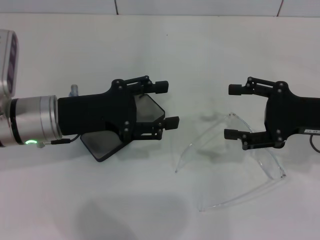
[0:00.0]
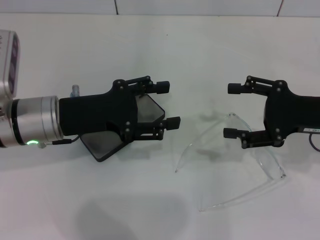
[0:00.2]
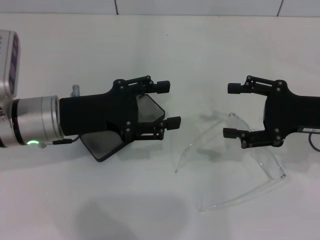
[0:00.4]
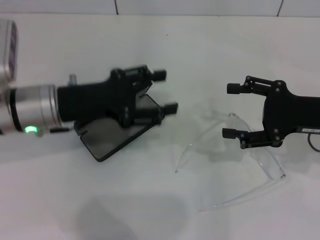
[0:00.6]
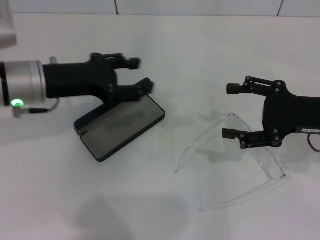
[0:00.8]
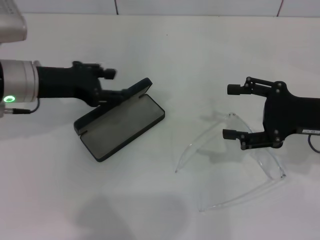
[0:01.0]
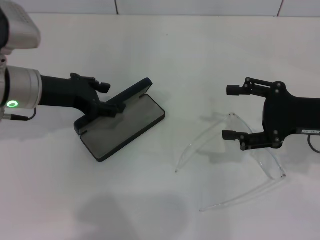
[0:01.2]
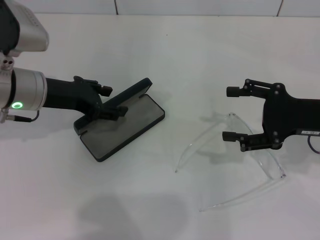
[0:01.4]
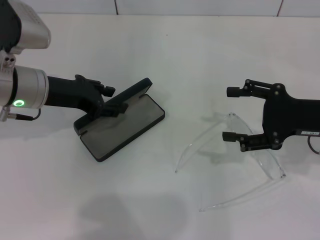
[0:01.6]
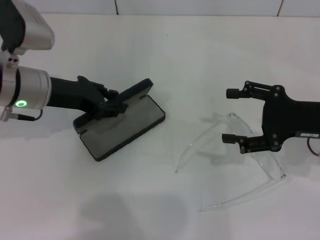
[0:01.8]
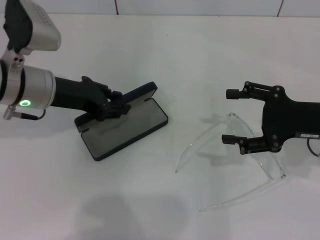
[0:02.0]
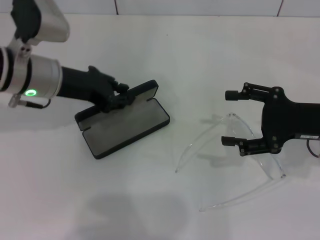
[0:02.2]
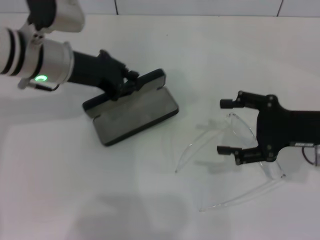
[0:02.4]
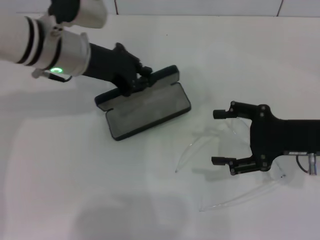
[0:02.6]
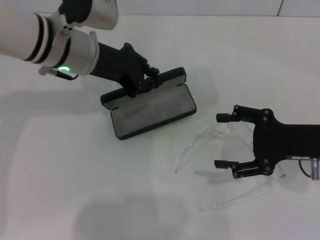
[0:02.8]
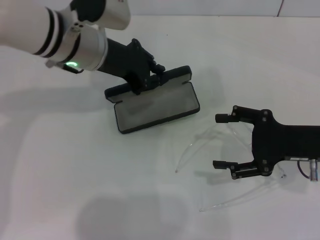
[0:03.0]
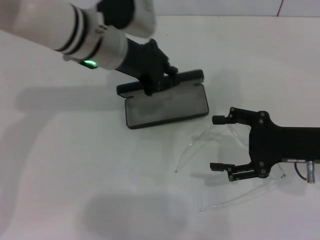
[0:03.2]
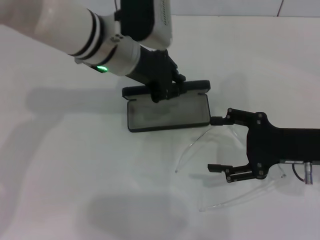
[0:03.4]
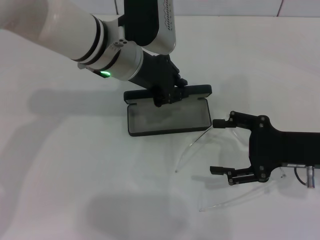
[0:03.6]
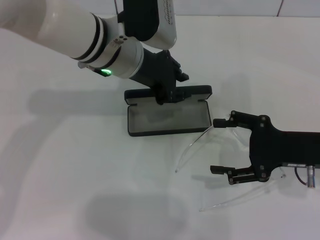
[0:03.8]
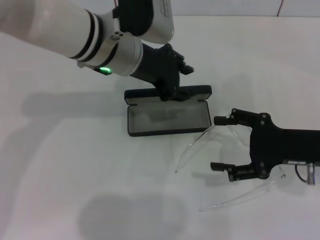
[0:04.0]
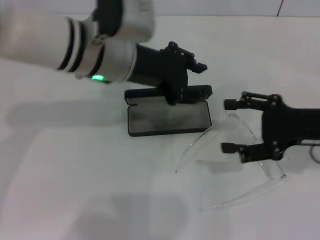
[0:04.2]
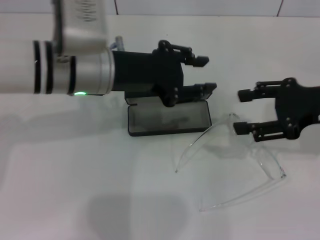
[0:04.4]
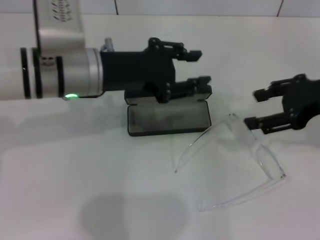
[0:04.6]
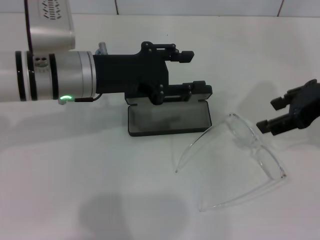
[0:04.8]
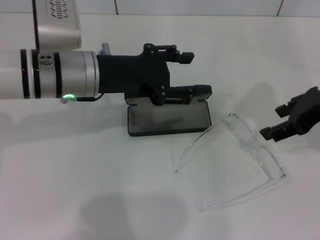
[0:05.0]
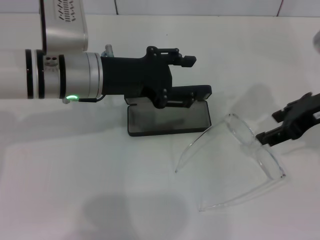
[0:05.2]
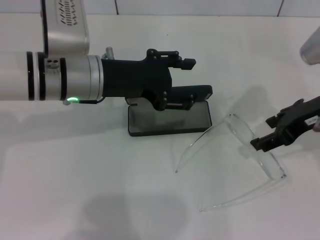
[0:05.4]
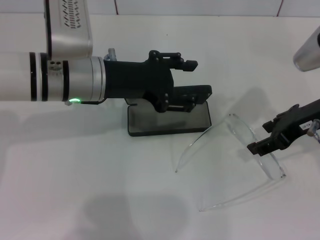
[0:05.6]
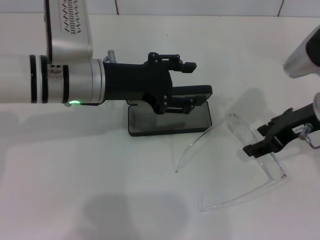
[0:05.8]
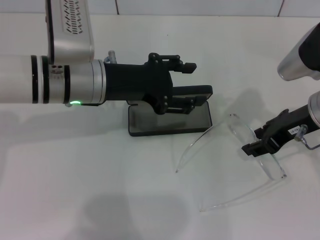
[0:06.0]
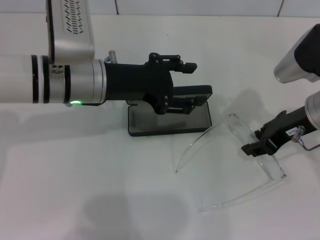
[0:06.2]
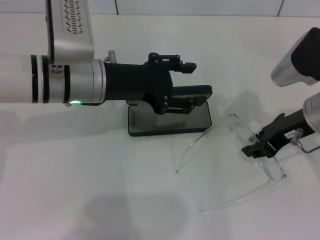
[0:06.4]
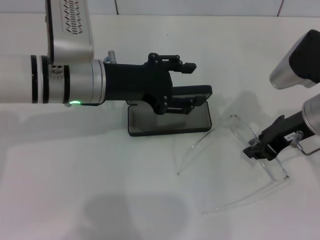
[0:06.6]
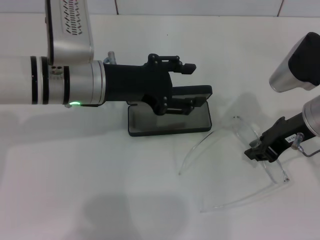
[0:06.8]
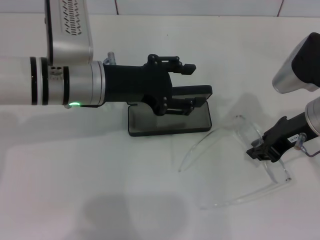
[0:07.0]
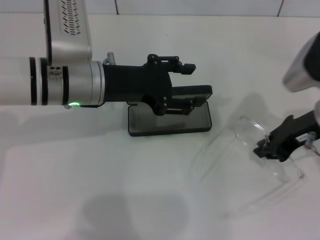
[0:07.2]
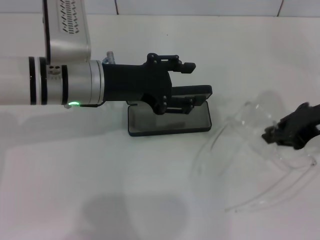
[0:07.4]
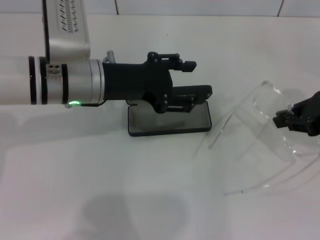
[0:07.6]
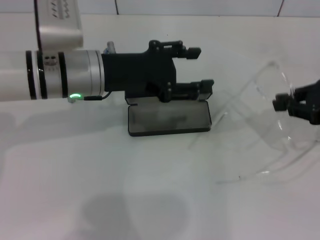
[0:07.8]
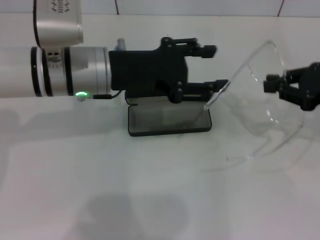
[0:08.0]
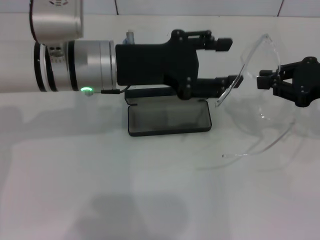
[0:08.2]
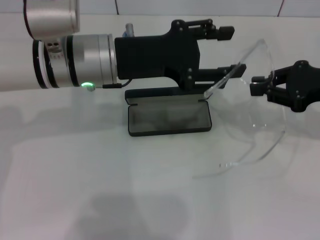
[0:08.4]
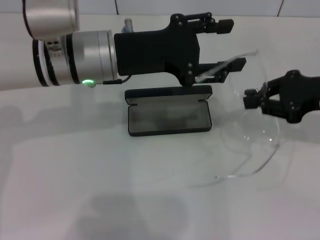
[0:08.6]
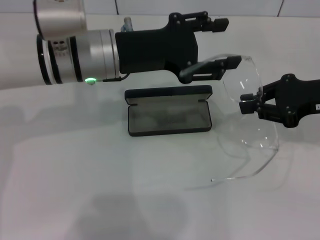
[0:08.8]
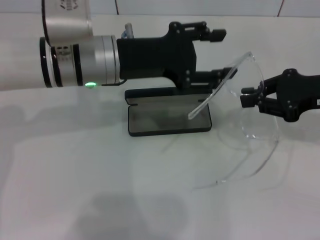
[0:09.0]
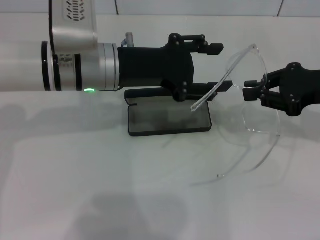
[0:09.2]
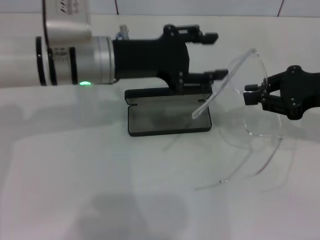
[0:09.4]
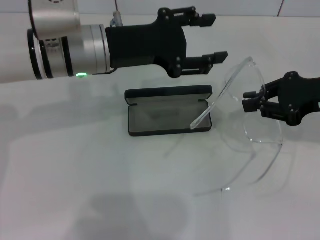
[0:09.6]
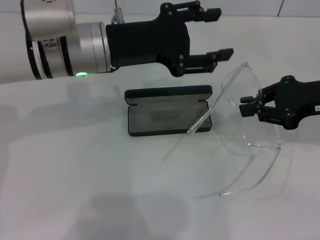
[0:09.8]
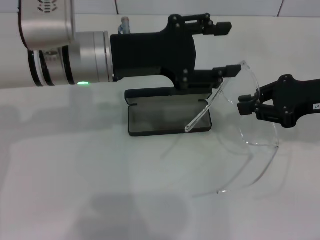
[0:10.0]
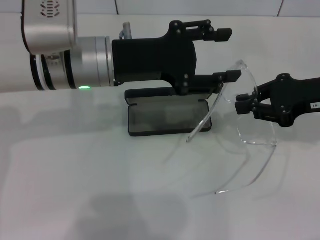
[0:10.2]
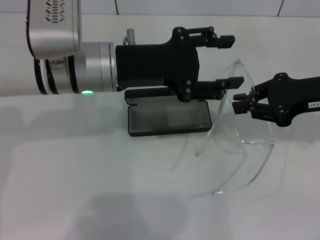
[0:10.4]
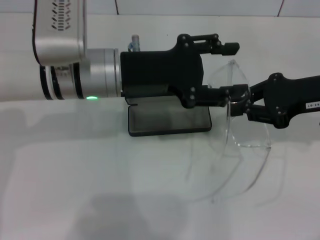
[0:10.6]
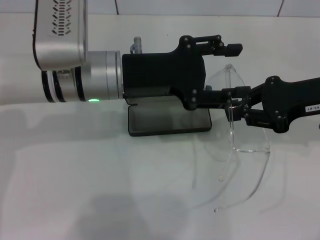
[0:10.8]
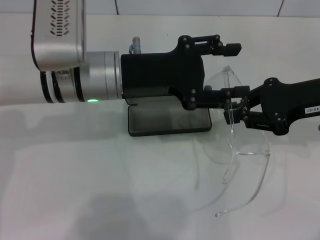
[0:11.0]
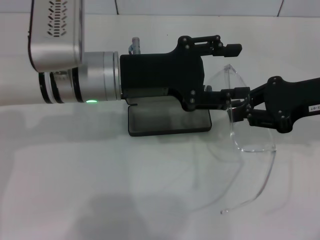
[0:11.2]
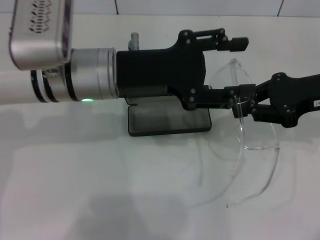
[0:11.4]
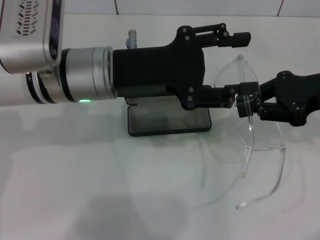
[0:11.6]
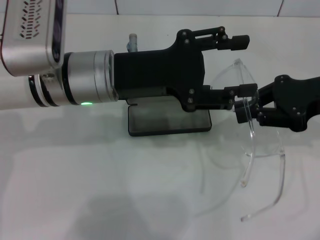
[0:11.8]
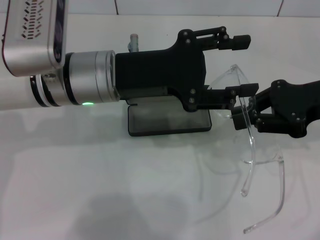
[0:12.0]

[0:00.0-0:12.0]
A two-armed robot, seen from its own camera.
Step, 0:00.0 to 0:01.8: Grab the glasses case with your left hand.
Step, 0:02.0 to 0:03.6: Place the glasses case in the center of the table with your left hand.
Step, 0:03.8 to 0:06.6: Grab the eyeglass frame with your right hand.
0:00.0 to 0:01.6: The left gripper moves forward, roughly 5 cm.
0:01.6 to 0:03.0: The left gripper heads to the right, covering approximately 10 cm, and closes its fingers.
0:03.0 to 0:04.4: The right gripper moves upward, approximately 5 cm. Meanwhile the left gripper heads backward, covering approximately 5 cm, and opens its fingers.
0:04.4 to 0:06.0: The right gripper is displaced to the left by approximately 5 cm. Meanwhile the left gripper opens.
0:06.0 to 0:07.6: The right gripper shifts roughly 10 cm to the right, and closes.
0:09.0 to 0:12.0: There are only small adjustments of the grippers.

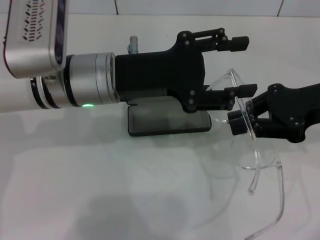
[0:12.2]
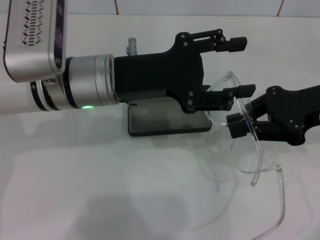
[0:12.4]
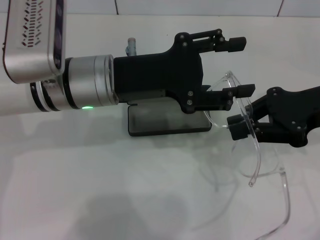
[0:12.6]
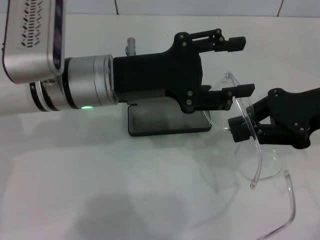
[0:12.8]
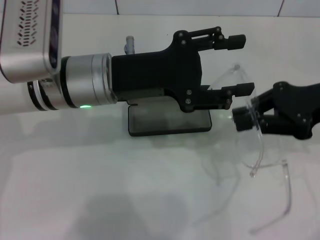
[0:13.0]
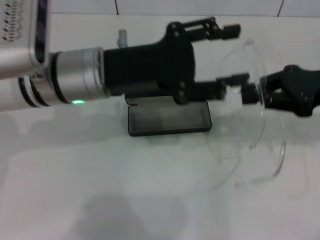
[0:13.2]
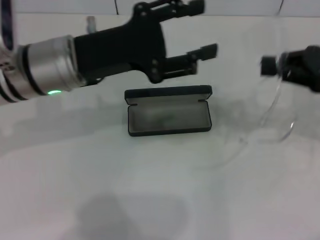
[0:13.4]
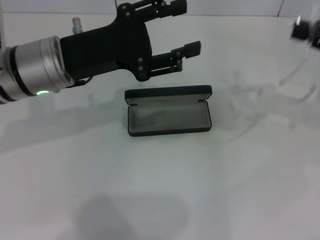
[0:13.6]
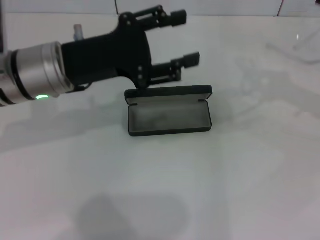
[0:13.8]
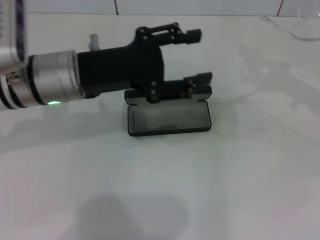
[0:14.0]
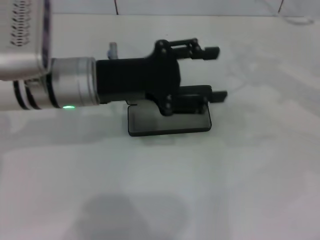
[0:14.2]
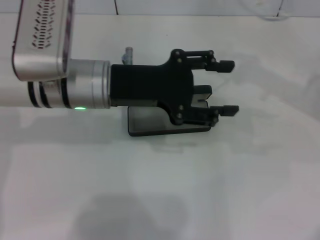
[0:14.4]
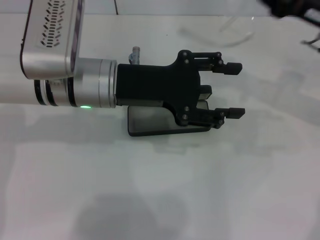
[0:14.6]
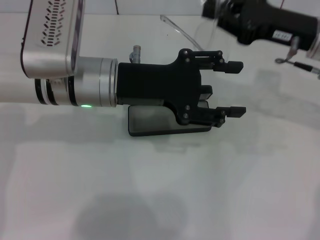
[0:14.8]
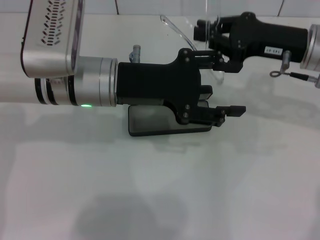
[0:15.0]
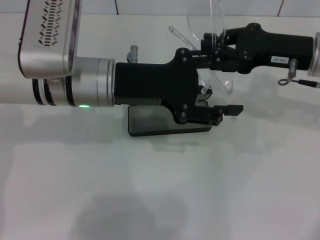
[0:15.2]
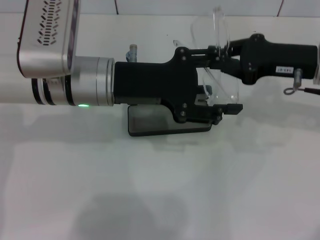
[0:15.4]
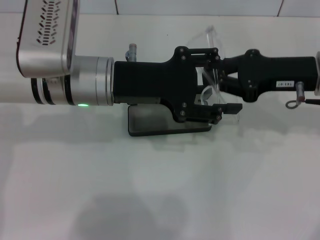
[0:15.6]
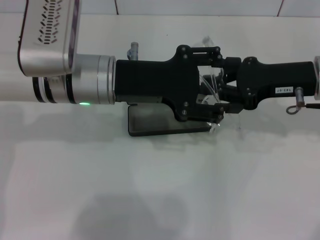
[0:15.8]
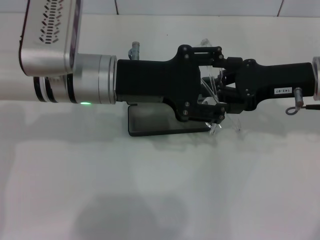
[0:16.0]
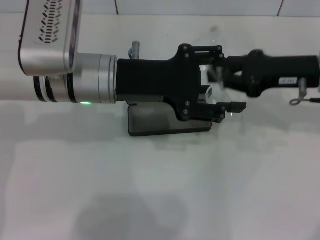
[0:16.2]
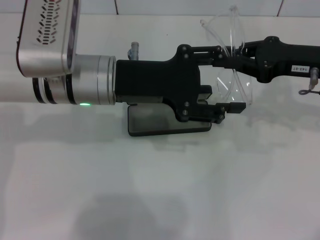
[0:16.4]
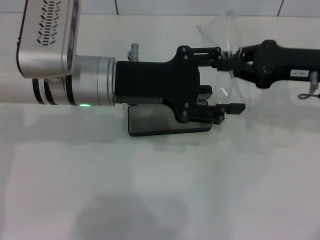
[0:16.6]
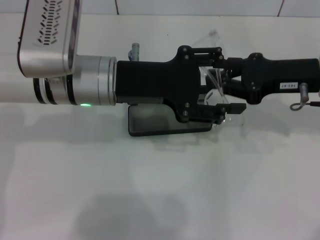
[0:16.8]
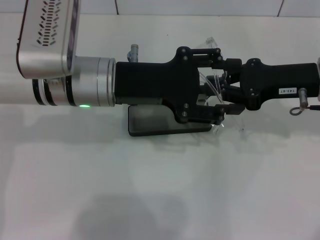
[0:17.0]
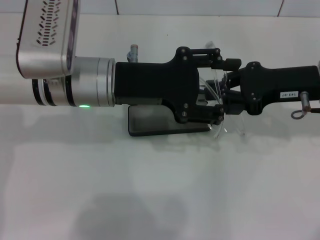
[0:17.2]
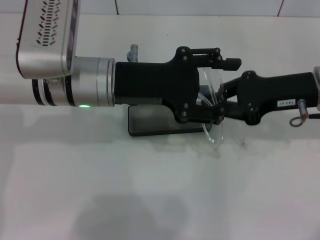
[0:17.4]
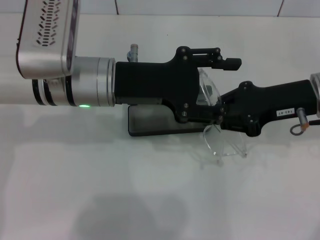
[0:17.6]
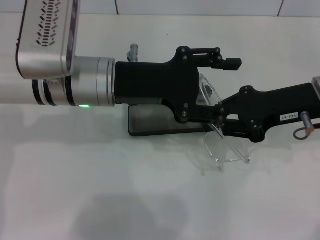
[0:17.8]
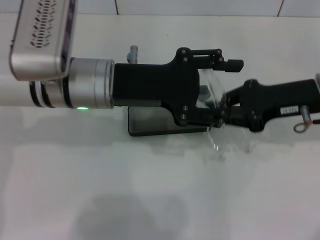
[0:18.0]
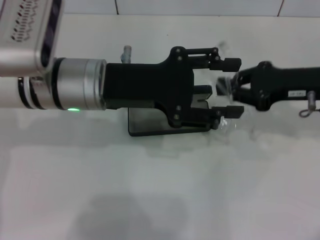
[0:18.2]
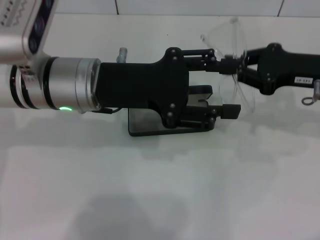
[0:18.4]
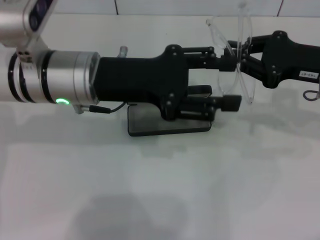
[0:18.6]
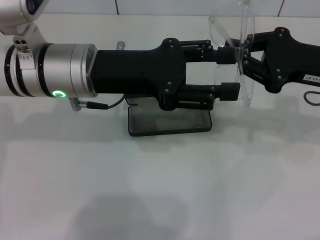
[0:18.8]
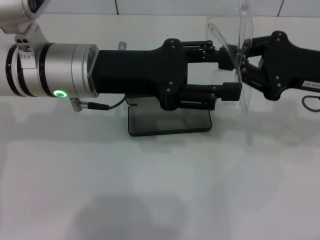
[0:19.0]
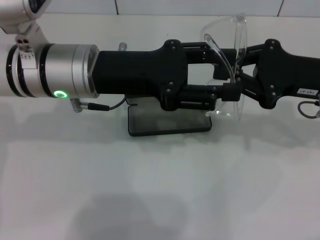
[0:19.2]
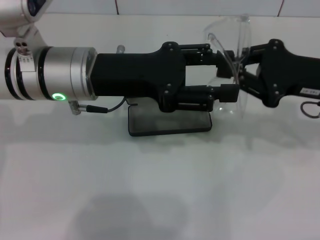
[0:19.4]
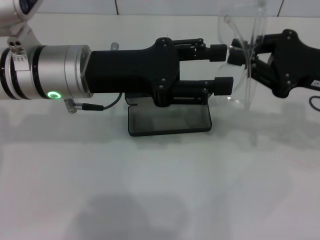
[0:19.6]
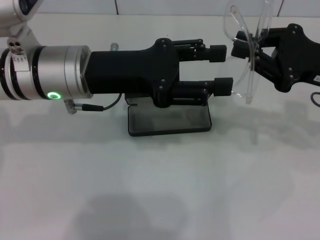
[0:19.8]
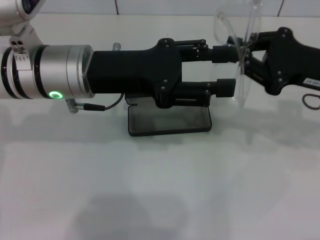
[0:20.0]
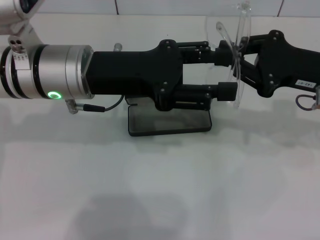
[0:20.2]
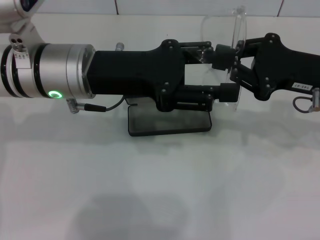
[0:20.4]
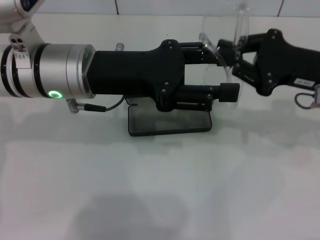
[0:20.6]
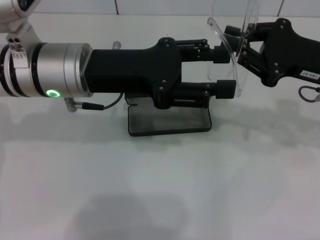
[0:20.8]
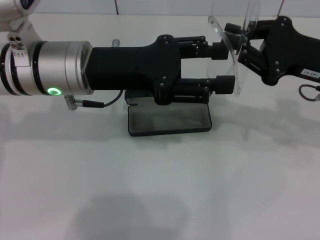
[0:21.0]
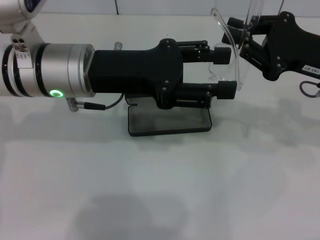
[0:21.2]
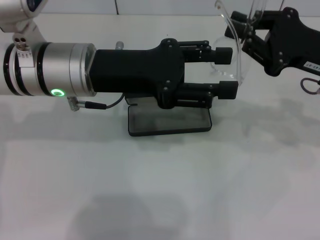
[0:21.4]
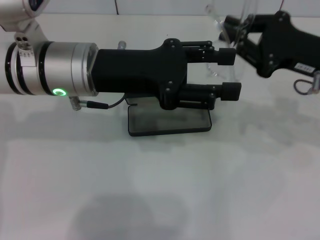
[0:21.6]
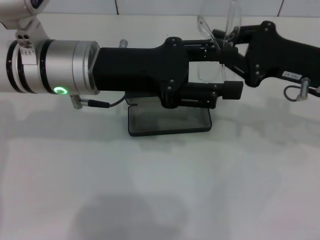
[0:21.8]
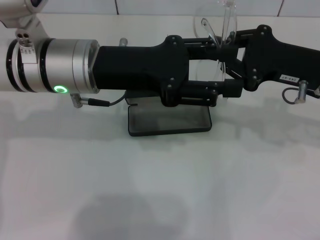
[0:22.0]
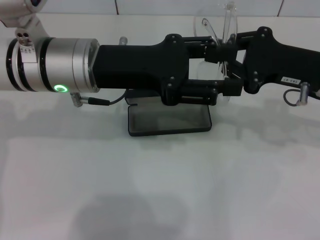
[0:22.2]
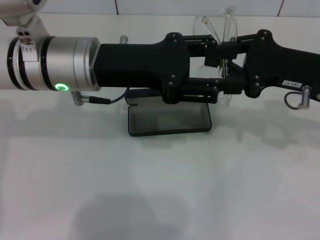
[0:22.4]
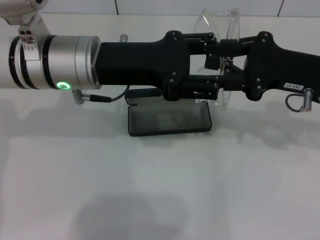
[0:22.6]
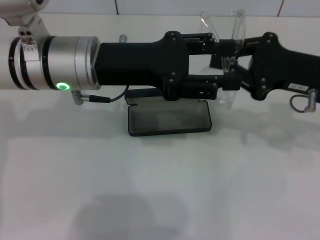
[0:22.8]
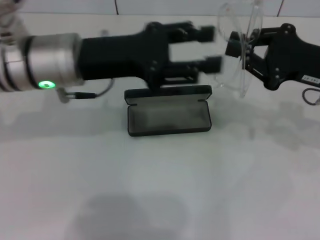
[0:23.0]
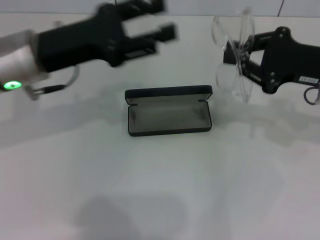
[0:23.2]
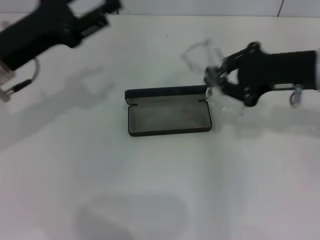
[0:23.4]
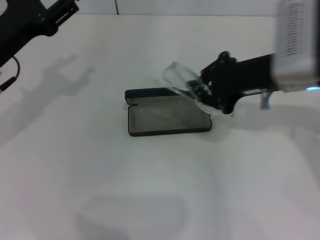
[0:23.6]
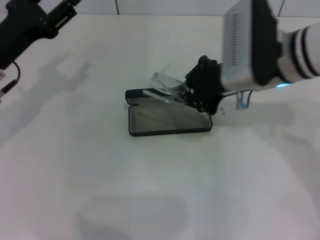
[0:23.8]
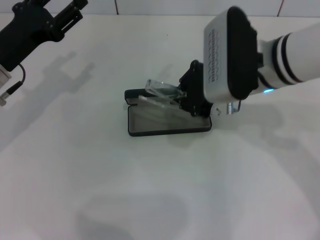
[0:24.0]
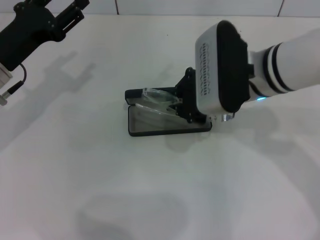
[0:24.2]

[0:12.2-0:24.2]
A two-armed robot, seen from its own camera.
Step, 0:12.2 to 0:22.6: Fold the frame with your left hand.
0:12.2 to 0:13.8: The right gripper shifts approximately 10 cm to the right. Meanwhile the left gripper is displaced to the left by approximately 5 cm.
0:13.8 to 0:15.2: The left gripper shifts approximately 5 cm to the right. The right gripper moves to the left, roughly 10 cm.
0:15.2 to 0:16.6: There are only small adjustments of the grippers.
0:16.6 to 0:18.2: The grippers stay close to where they were, moving slightly.
0:19.8 to 0:22.6: The grippers move only a little.
0:22.6 to 0:24.2: The right gripper goes some 15 cm to the left. The left gripper travels to the left and downward by roughly 15 cm.
